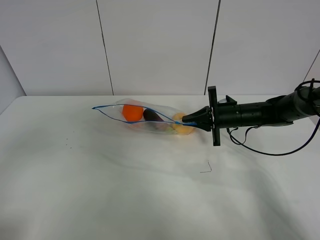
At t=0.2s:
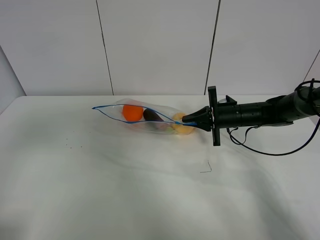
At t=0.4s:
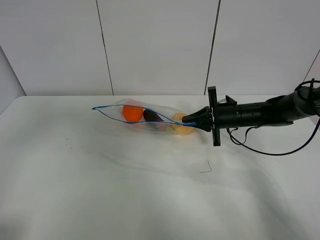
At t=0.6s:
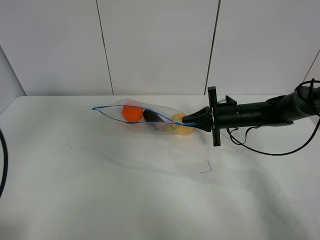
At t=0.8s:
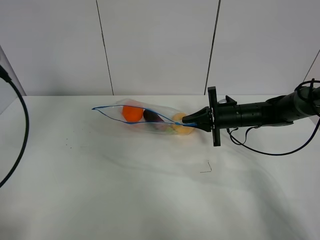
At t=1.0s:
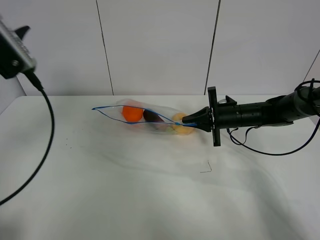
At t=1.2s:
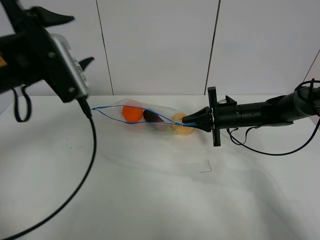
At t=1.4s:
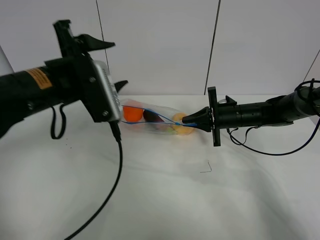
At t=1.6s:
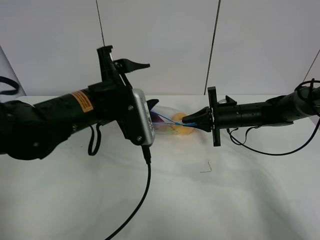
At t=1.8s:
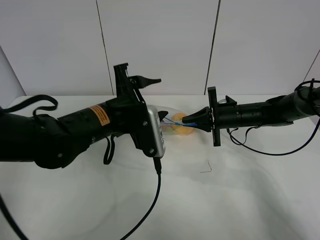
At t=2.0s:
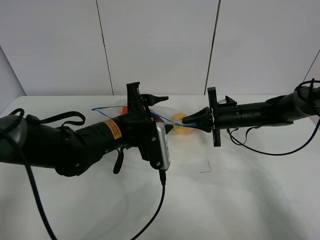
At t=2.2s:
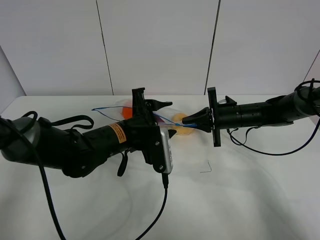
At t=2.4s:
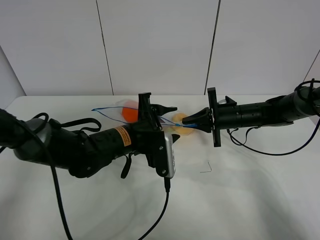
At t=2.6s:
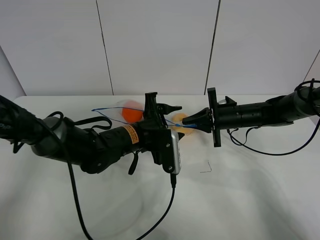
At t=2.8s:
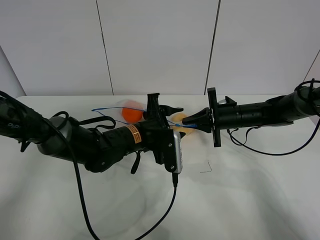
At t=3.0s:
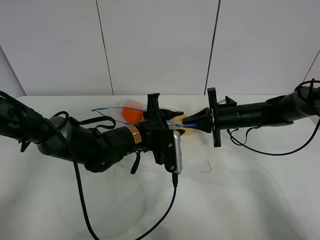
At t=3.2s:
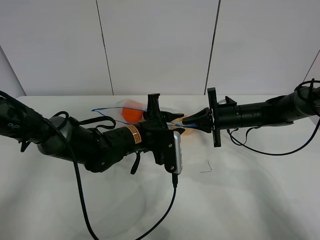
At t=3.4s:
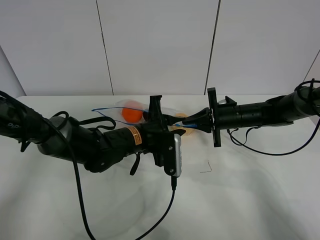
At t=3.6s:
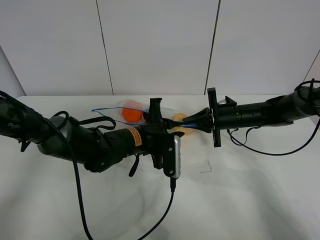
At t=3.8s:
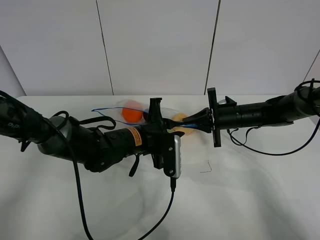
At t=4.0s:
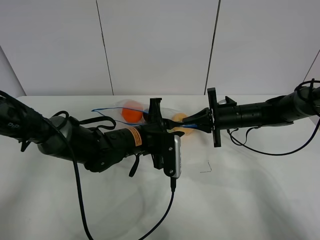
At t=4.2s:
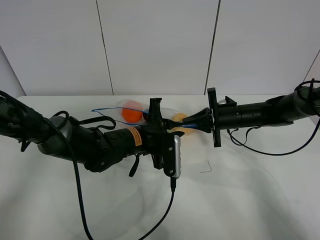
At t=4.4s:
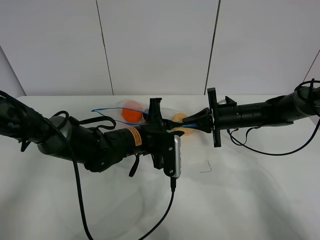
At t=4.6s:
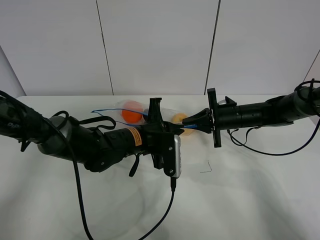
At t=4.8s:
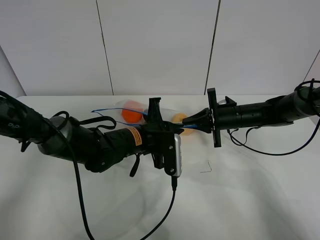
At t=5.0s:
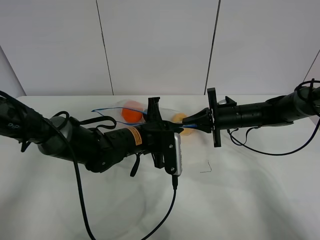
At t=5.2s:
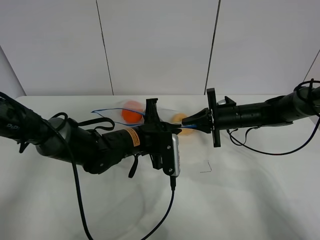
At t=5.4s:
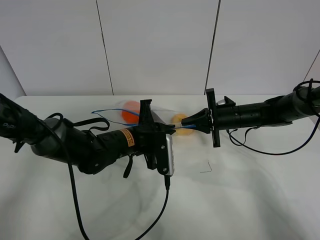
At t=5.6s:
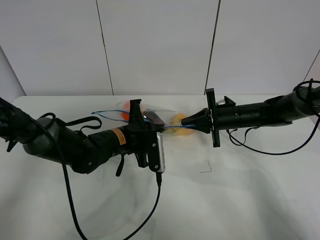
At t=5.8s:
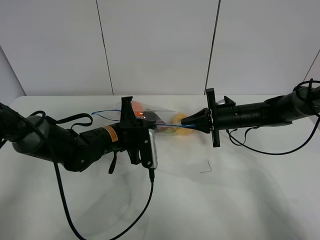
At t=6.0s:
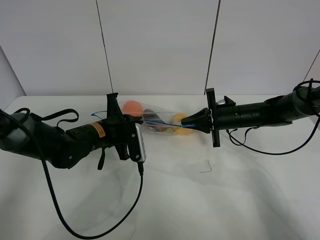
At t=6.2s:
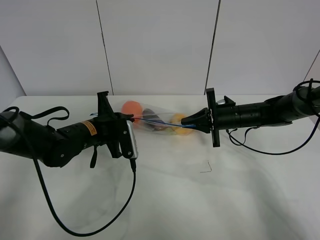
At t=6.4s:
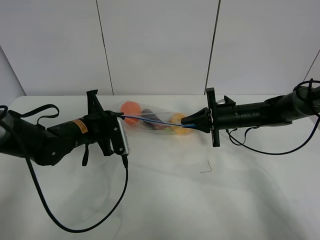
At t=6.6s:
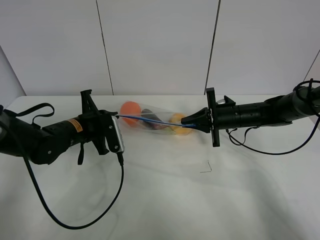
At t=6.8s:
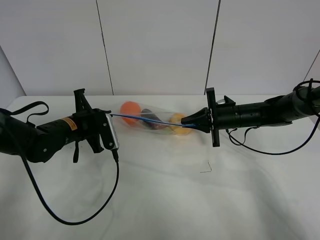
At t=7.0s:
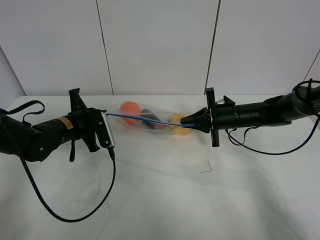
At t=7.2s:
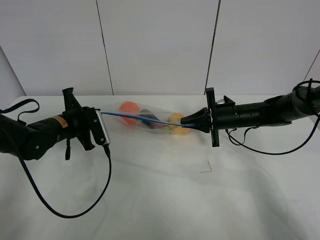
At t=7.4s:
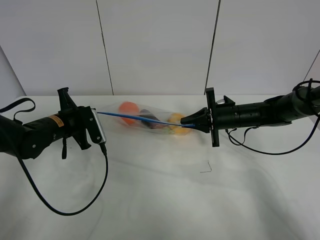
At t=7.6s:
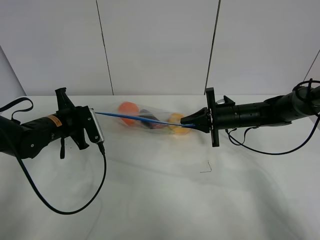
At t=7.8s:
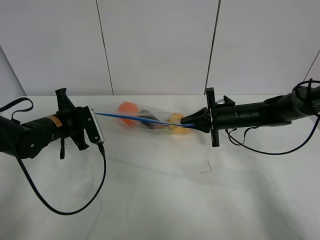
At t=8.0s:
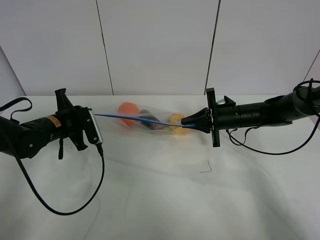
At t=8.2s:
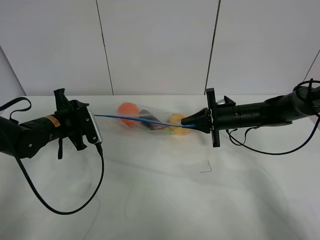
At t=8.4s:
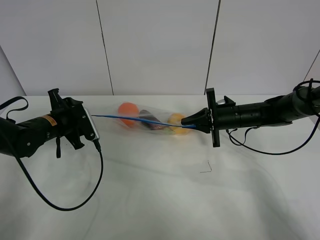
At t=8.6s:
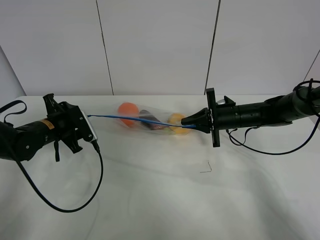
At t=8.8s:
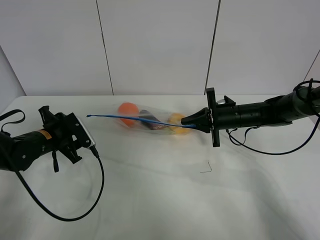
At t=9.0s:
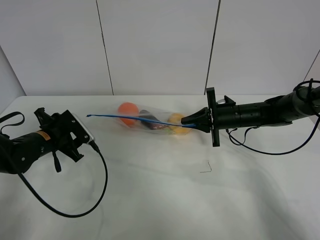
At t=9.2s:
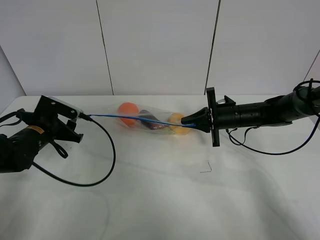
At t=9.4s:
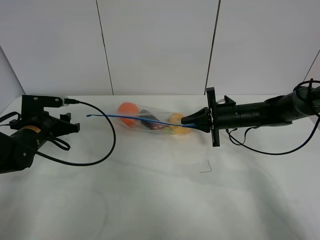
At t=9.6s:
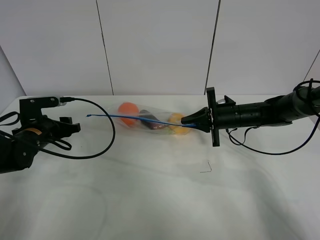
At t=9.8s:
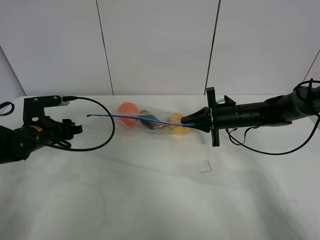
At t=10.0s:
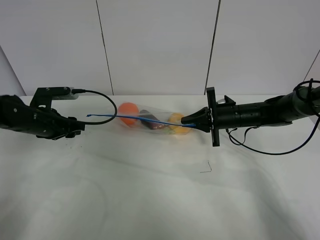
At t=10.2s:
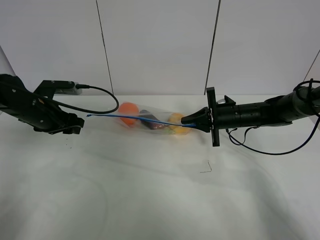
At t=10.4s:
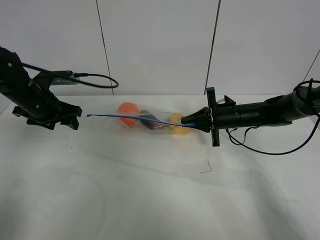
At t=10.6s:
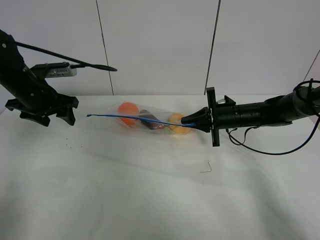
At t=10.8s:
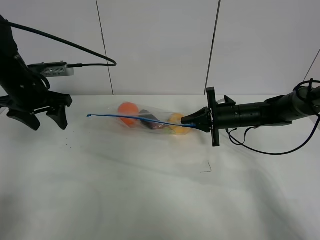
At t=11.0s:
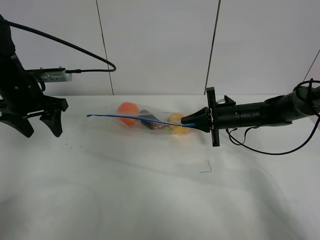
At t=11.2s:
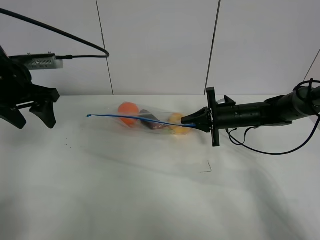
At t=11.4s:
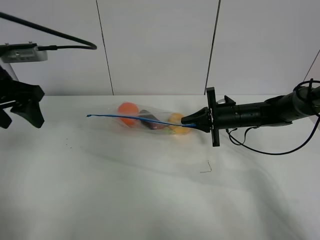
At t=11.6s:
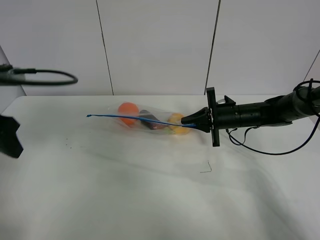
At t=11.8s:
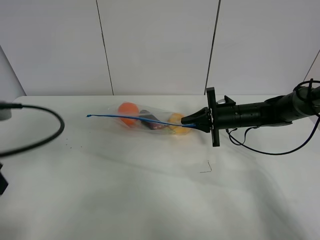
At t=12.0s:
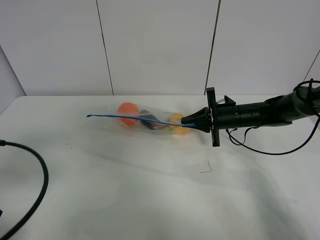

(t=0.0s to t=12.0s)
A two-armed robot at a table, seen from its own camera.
Step, t=0.0s - t=8.2s: Pull the fruit bag with left gripper.
t=0.0s - t=1.6s: The left gripper is displaced to the right, forward and downward by about 30 cm.
t=1.6s - t=3.0s: The left gripper heads downward and to the right, covering about 10 cm, and closes.
t=3.0s - t=4.4s: The left gripper closes its fingers.
t=4.4s - t=6.0s: The left gripper travels to the left by approximately 10 cm.
t=6.0s - t=7.6s: The left gripper travels to the left by approximately 10 cm.
t=7.6s - t=9.0s: The left gripper opens up.
t=9.0s - t=10.4s: The left gripper goes about 10 cm upward.
t=10.4s - t=12.0s: The left gripper shifts about 25 cm backward.

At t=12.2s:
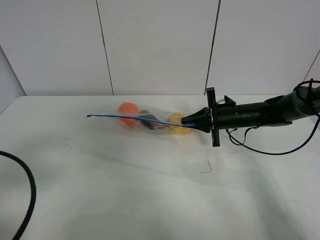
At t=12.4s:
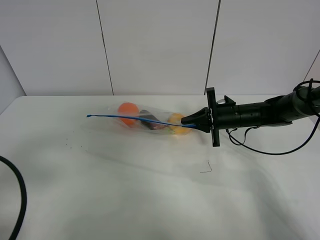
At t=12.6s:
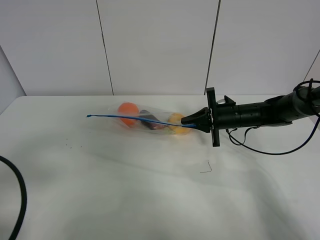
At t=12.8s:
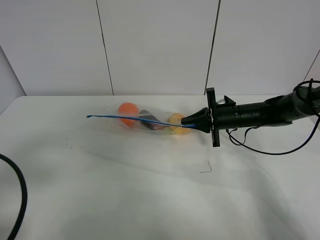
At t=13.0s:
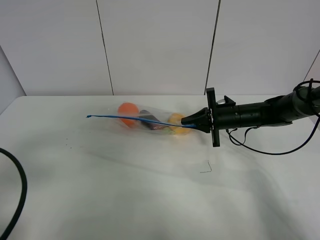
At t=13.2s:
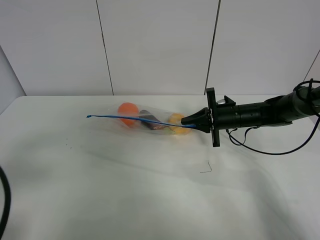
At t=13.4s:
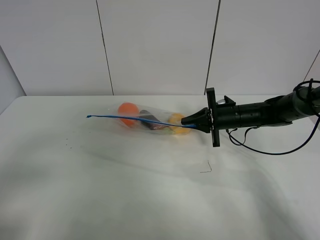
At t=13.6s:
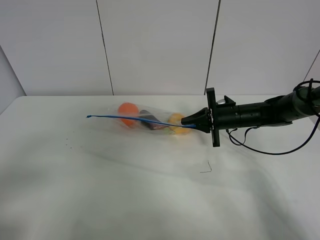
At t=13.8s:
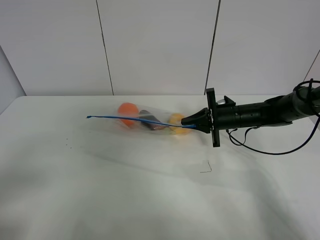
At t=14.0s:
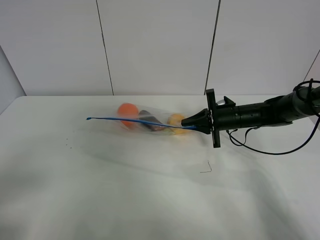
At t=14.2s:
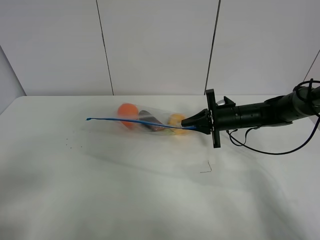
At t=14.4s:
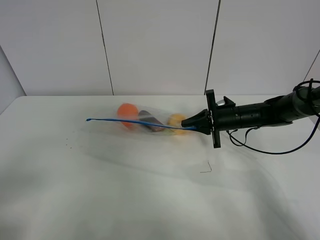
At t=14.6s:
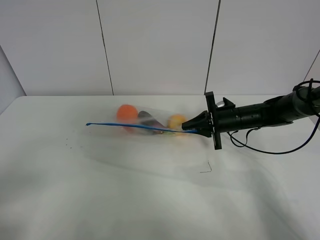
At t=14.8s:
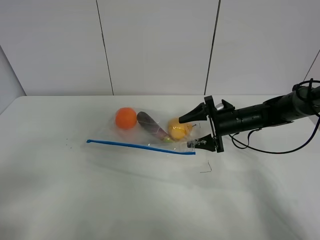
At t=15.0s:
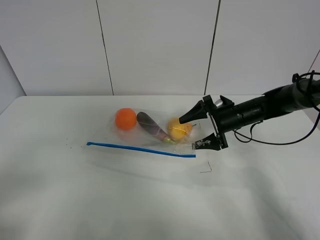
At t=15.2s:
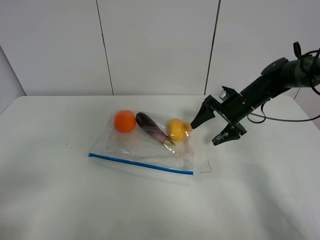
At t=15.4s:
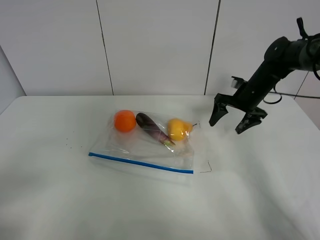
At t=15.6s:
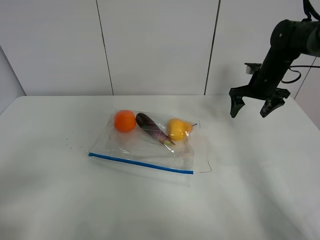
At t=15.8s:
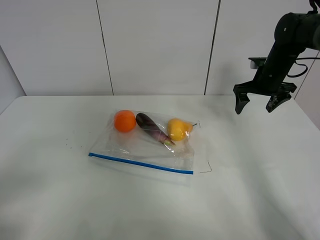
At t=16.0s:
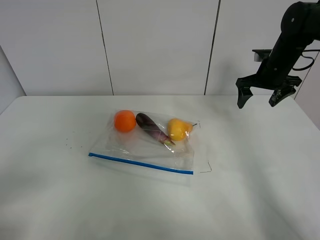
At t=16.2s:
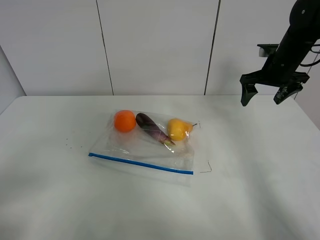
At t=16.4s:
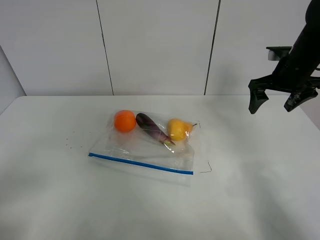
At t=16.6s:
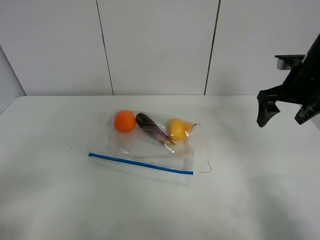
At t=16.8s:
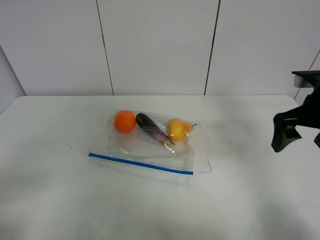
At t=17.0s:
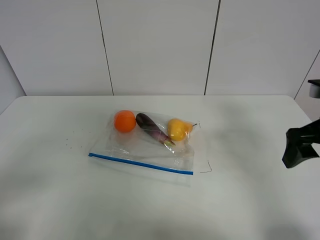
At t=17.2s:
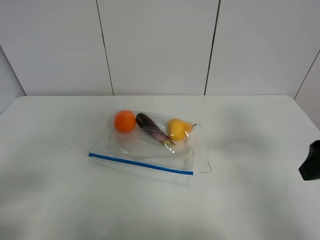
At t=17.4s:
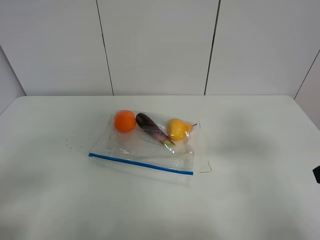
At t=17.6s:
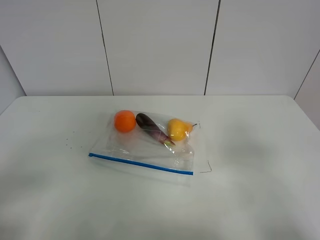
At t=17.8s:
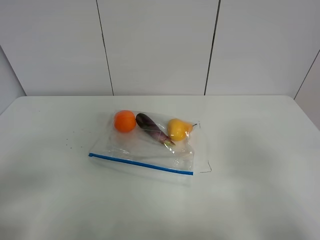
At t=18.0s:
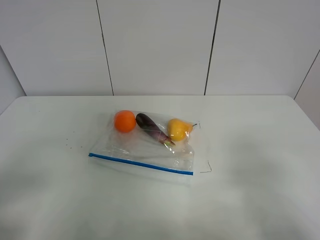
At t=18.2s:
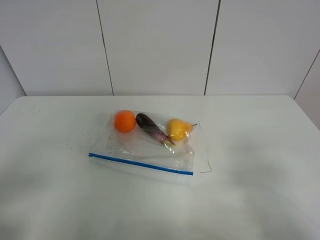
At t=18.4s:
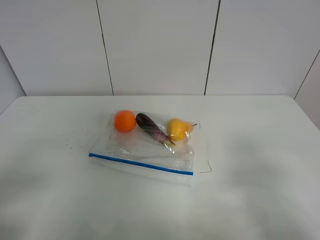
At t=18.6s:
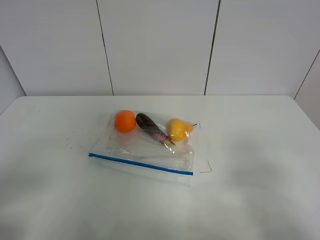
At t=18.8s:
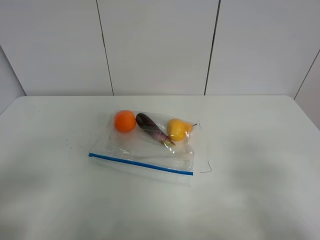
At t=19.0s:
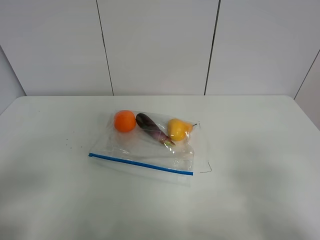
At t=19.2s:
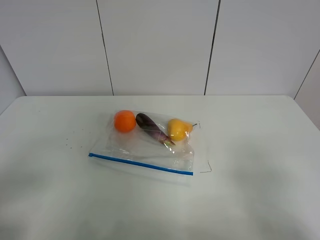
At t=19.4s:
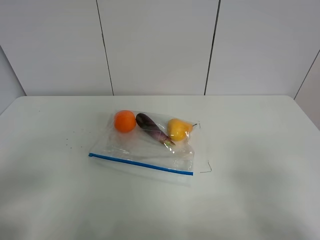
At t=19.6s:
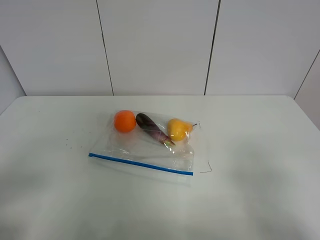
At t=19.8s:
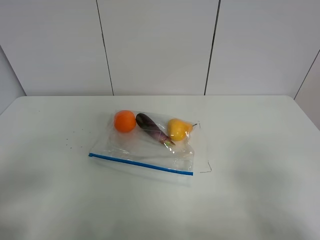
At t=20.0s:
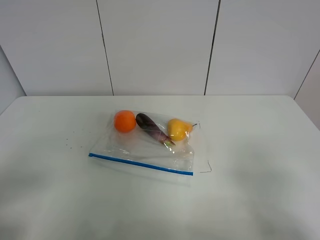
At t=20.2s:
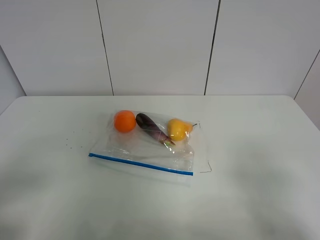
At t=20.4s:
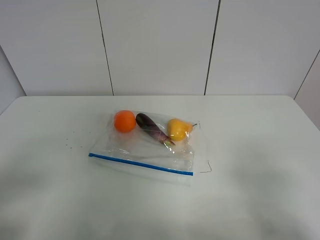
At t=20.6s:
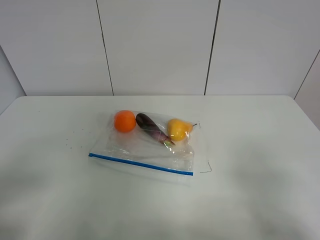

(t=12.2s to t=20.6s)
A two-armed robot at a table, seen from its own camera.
Step, t=12.2s - t=15.4s: Place the fruit bag with right gripper.
t=12.2s - t=13.6s: The left gripper travels backward by about 5 cm.
t=13.6s - t=15.0s: The right gripper opens up.
t=15.0s - t=16.4s: The right gripper travels upward and to the right by about 15 cm.
t=16.4s - t=17.8s: The right gripper is displaced backward by roughly 35 cm.
t=19.2s - t=20.6s: Neither gripper changes place.
